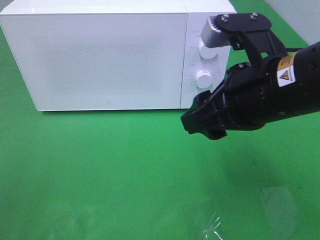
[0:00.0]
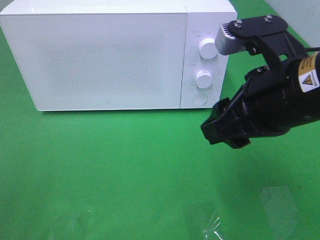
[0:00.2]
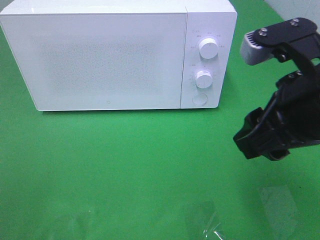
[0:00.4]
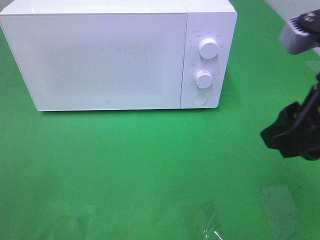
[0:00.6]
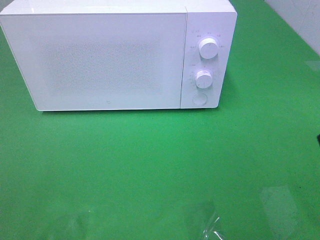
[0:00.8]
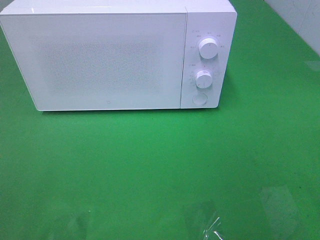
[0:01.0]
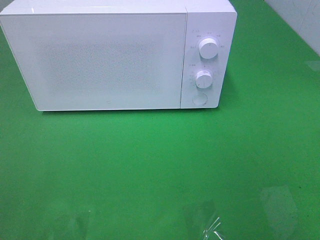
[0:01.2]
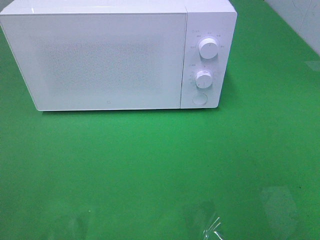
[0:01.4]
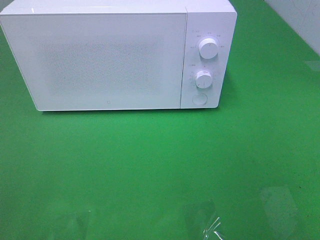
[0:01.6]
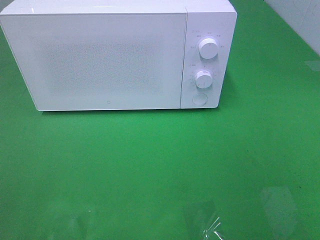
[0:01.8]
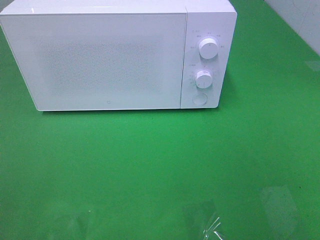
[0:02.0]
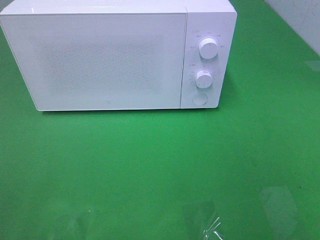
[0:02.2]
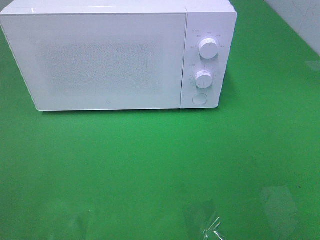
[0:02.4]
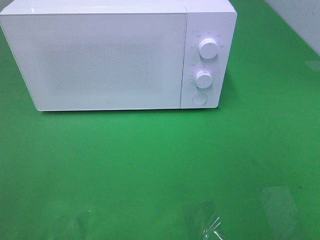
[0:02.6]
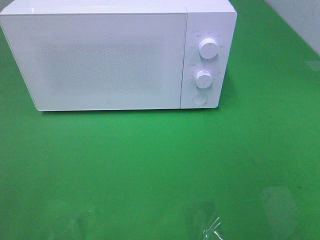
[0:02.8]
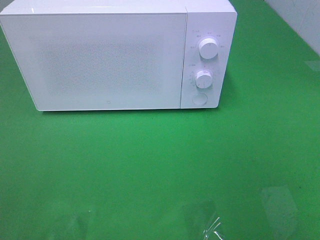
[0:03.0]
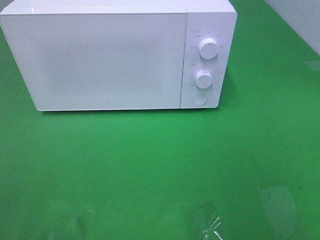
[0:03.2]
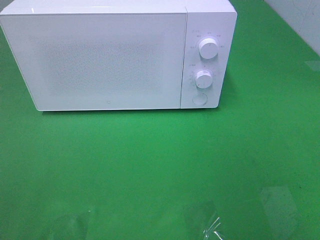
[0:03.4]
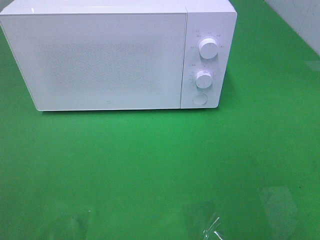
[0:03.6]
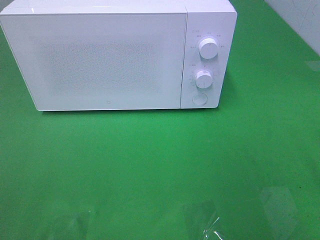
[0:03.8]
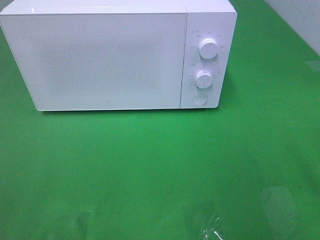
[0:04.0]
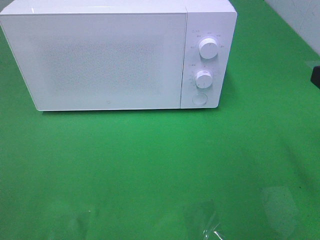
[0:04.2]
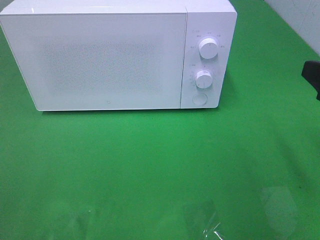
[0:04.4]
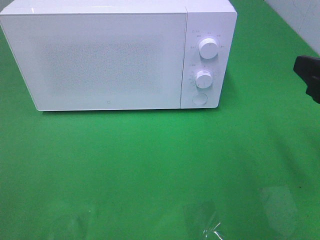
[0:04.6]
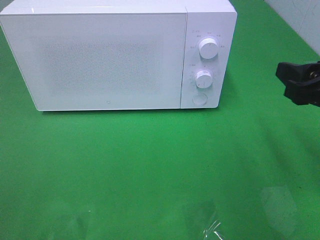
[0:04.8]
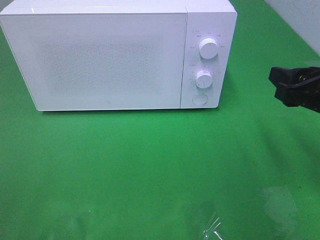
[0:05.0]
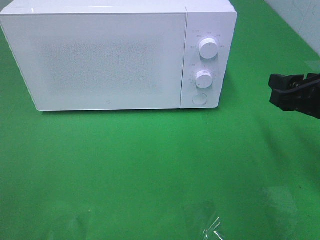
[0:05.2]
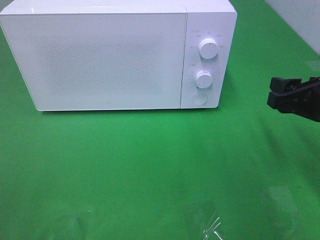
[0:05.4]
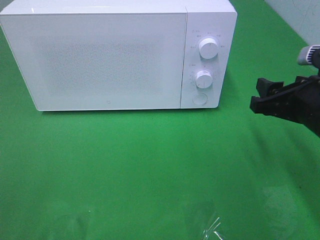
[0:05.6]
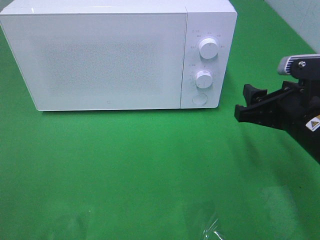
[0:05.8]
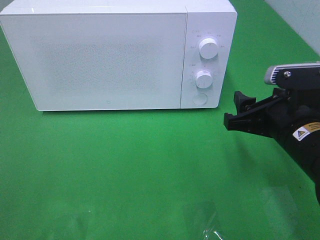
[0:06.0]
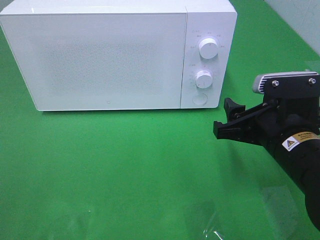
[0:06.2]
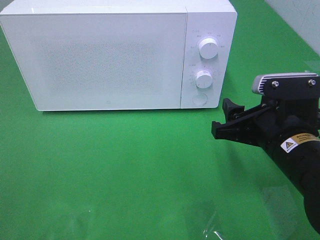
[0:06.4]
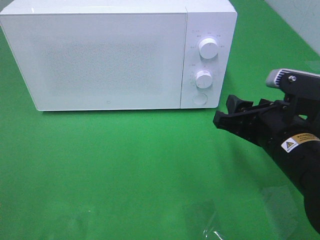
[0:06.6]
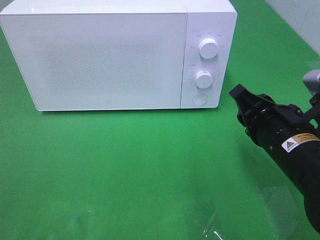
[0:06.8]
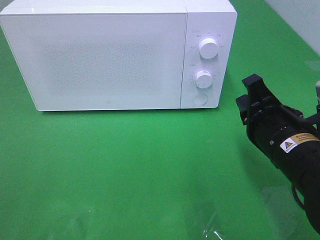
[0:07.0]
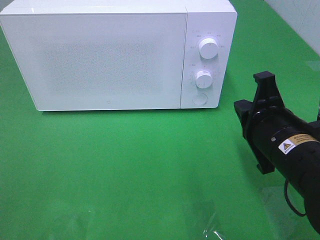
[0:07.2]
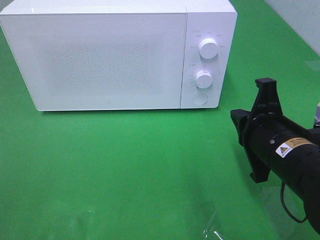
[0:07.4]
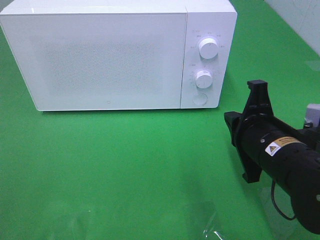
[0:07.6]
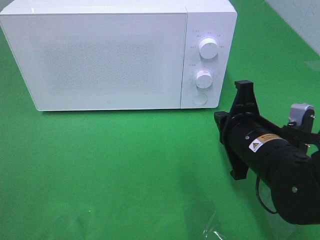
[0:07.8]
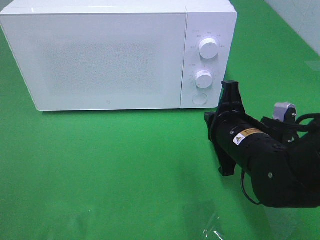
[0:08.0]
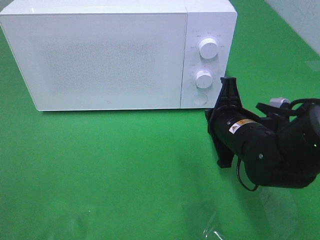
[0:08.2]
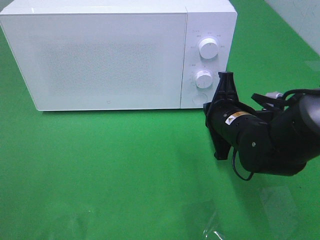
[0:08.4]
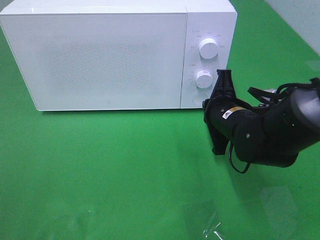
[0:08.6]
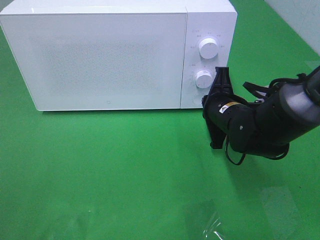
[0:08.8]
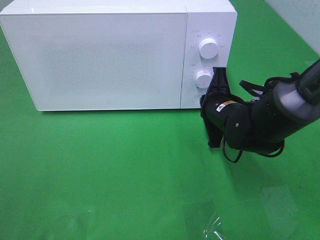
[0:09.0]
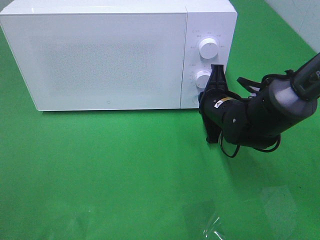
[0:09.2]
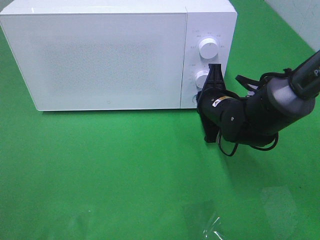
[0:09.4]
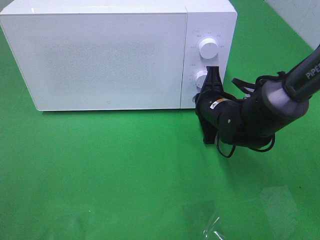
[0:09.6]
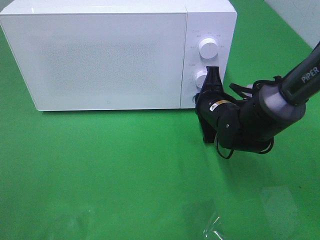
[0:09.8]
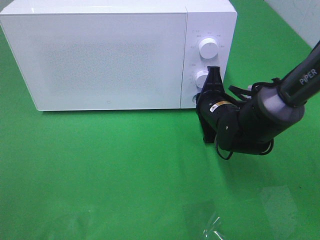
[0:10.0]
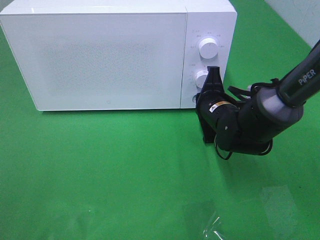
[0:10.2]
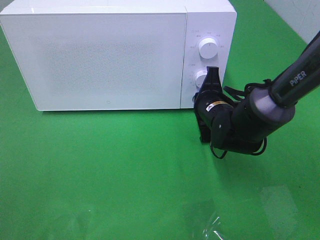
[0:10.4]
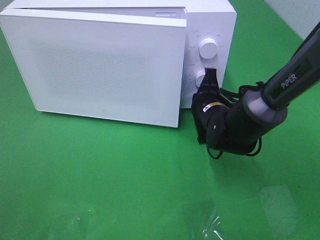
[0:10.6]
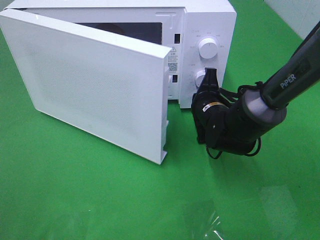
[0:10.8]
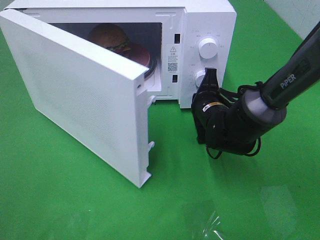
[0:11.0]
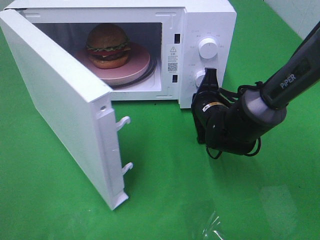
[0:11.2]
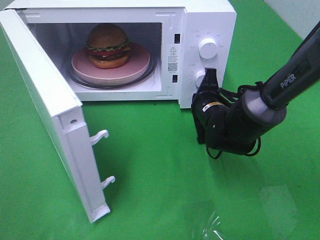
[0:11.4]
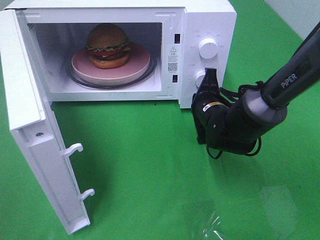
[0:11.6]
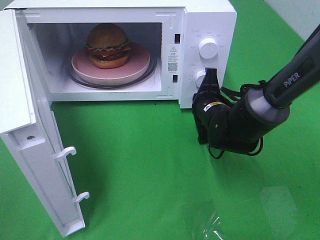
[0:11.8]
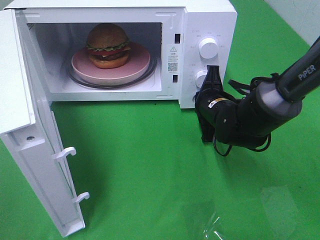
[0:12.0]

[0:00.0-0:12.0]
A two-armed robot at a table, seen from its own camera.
Task of the whole recording: Heat the burger.
0:00.0 to 0:01.6: The right gripper travels backward and to the right by some 25 cm.
0:04.4 to 0:06.0: The right gripper moves downward, to the left and forward, roughly 15 cm.
0:06.0 to 0:07.6: The right gripper closes its fingers.
0:07.6 to 0:09.0: The right gripper travels forward by approximately 10 cm.
0:09.0 to 0:10.4: The grippers move only a little.

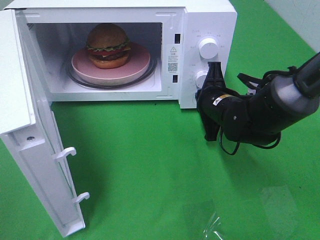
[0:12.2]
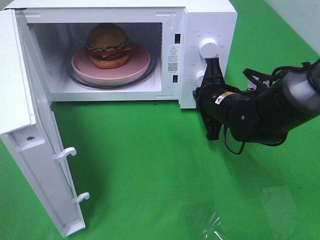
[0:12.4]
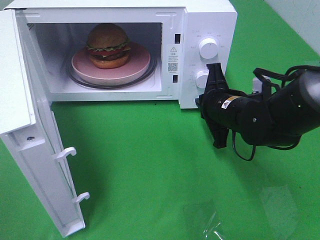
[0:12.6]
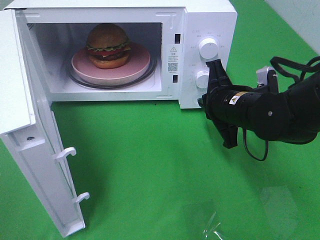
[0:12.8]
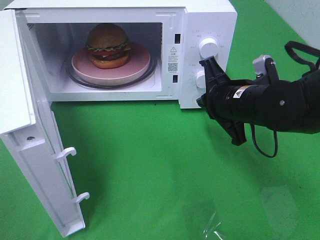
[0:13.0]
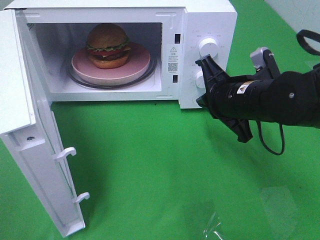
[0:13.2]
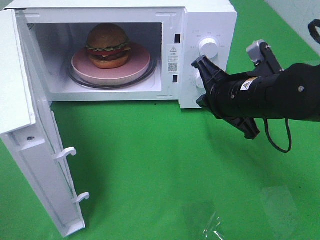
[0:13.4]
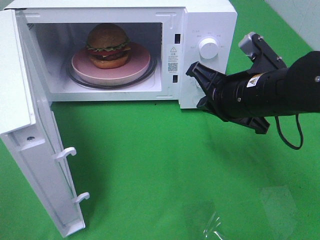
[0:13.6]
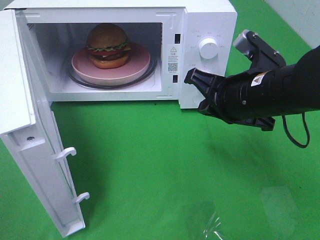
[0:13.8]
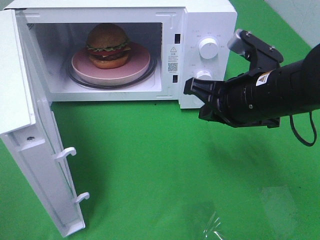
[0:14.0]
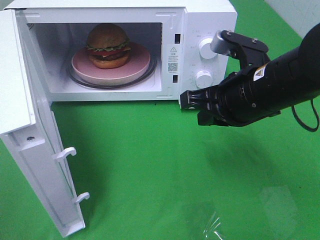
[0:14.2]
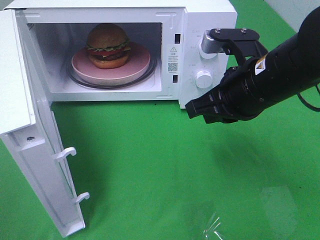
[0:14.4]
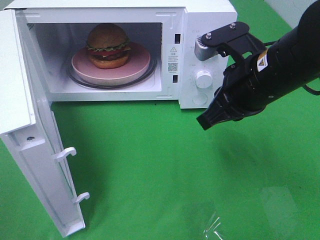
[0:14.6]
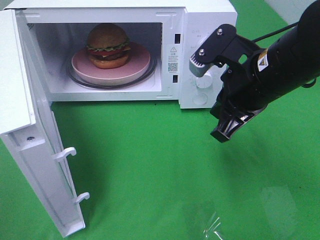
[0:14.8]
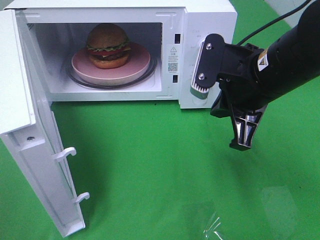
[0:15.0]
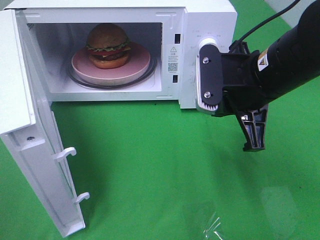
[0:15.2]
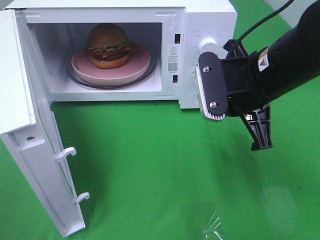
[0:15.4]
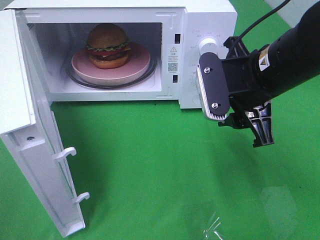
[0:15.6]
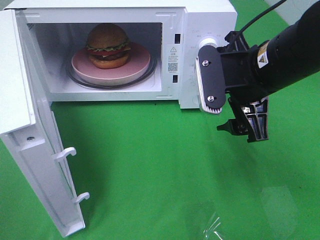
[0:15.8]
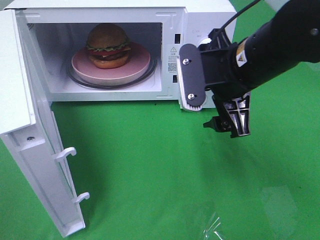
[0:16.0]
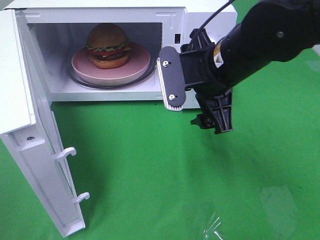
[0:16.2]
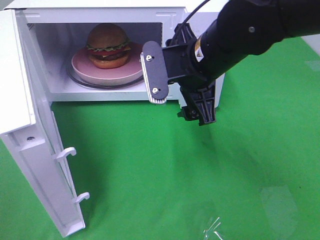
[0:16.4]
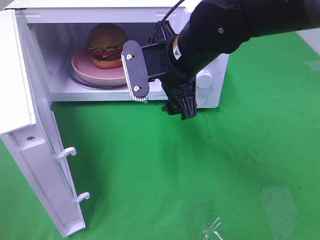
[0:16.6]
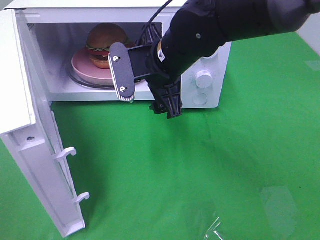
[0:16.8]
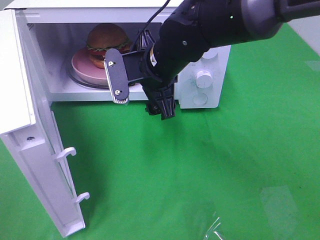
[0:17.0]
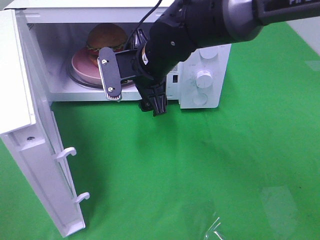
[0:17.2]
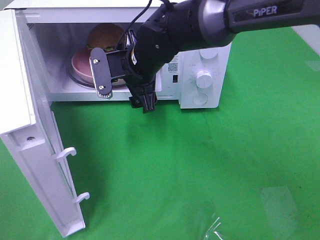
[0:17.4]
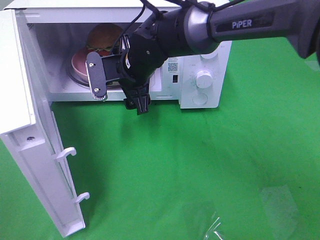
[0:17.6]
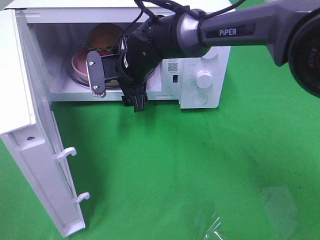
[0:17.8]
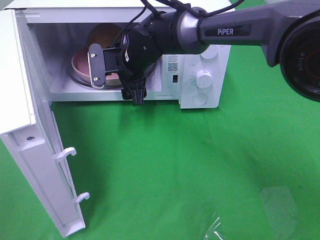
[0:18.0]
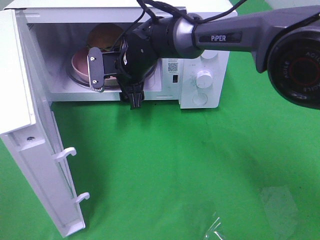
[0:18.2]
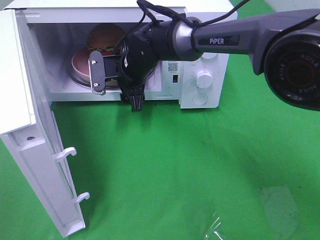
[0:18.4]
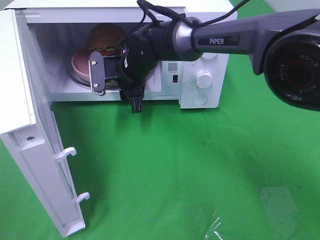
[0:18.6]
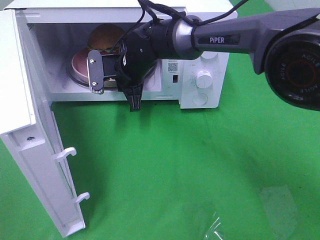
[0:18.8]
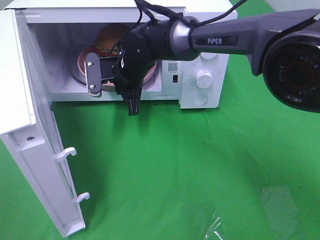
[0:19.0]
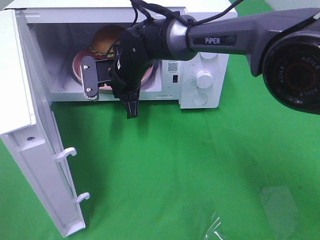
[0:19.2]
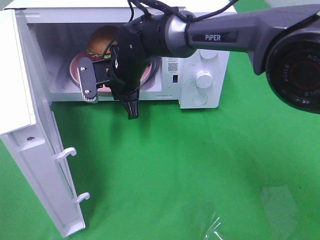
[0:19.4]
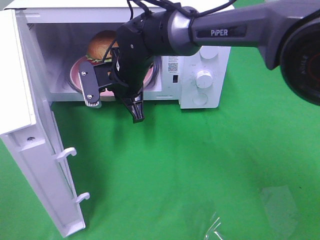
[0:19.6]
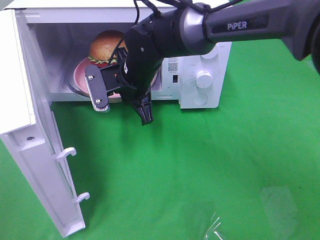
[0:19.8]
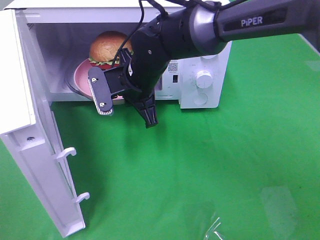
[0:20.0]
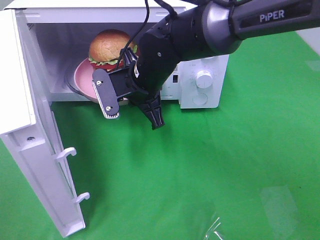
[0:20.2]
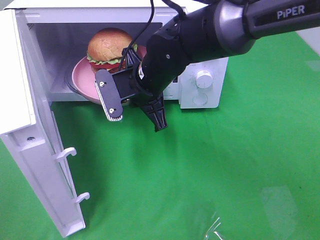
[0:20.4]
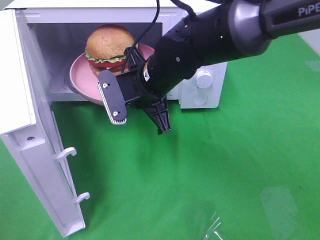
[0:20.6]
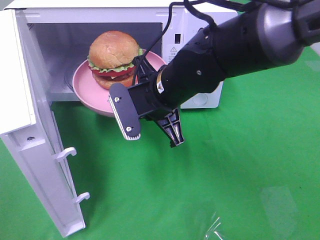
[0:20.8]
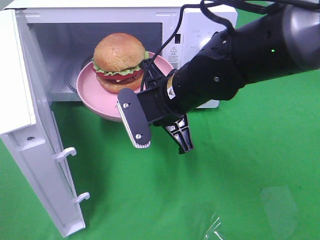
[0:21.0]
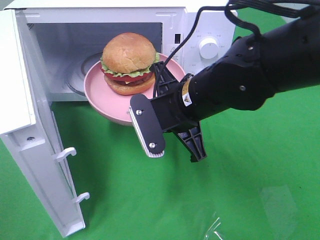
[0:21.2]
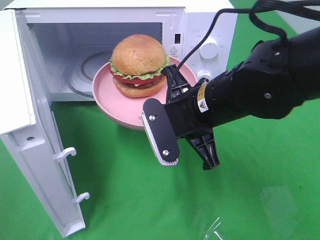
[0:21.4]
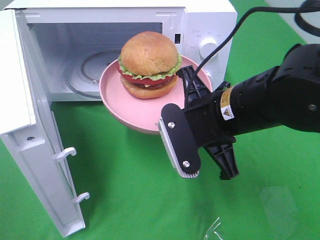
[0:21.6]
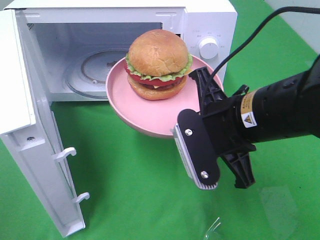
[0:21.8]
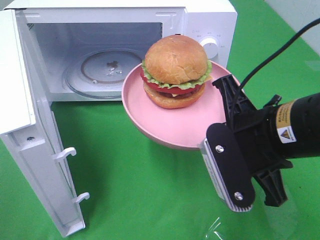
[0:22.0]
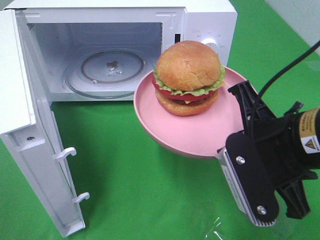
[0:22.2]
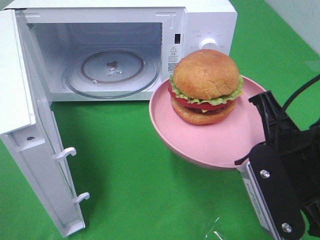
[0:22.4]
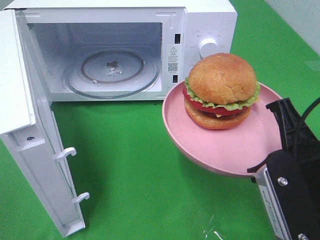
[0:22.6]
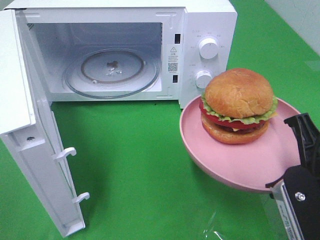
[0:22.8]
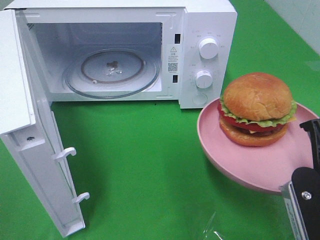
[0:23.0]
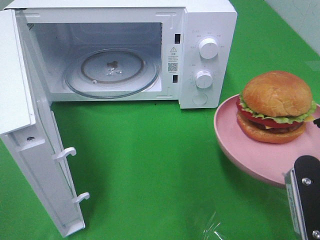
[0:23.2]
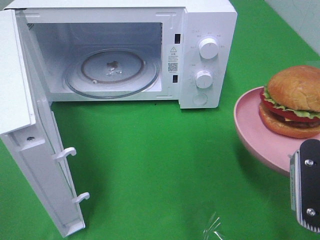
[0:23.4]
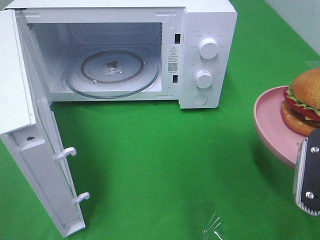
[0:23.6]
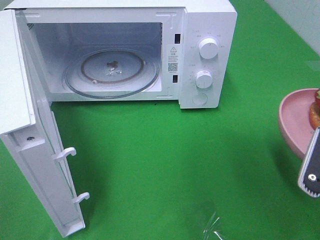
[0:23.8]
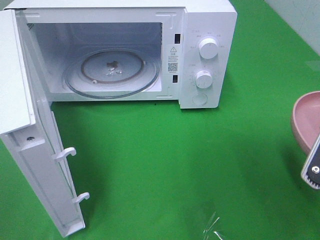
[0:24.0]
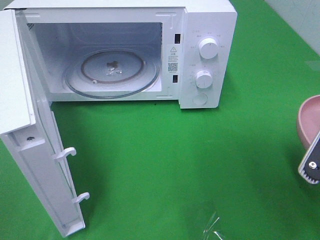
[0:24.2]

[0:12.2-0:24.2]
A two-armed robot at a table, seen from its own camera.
Task of the whole recording: Heat the burger.
Step, 0:13.2 to 0:19.2: Right hand: grab the plate with the hamburger.
0:12.2 to 0:13.8: The right gripper shifts approximately 10 cm upward and backward.
0:15.2 to 0:16.6: The right gripper heads to the left and forward, covering some 10 cm, and opens.
0:16.6 to 0:18.2: The right gripper goes approximately 15 cm forward, downward and to the left.
0:18.2 to 0:19.8: The right gripper shifts roughly 5 cm backward, and closes its fingers.
0:19.8 to 0:21.2: The right gripper moves backward and to the right, some 15 cm.
0:21.2 to 0:22.6: The right gripper travels backward and to the right by approximately 20 cm.
0:22.6 to 0:24.2: The right gripper shifts approximately 5 cm to the right.
